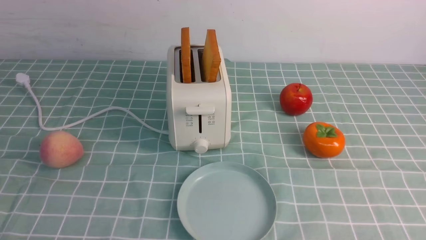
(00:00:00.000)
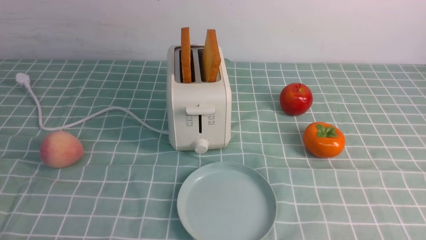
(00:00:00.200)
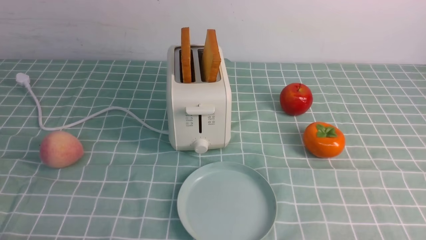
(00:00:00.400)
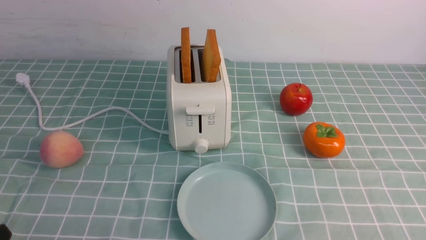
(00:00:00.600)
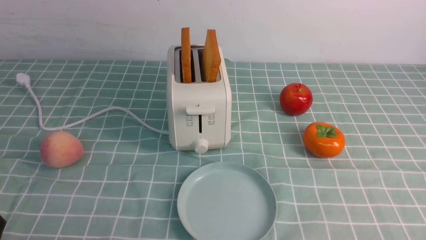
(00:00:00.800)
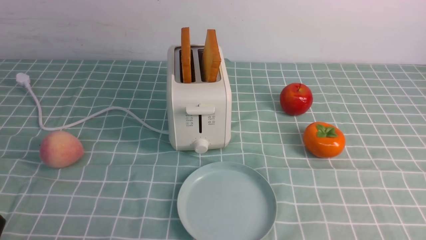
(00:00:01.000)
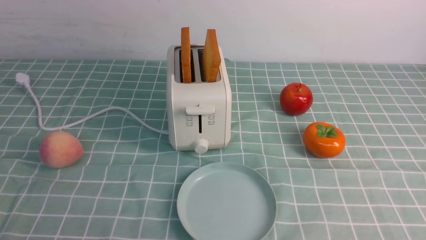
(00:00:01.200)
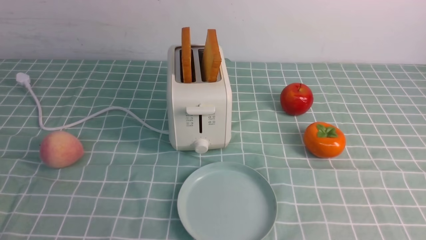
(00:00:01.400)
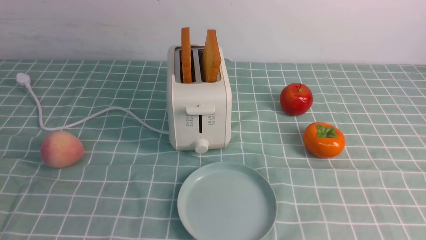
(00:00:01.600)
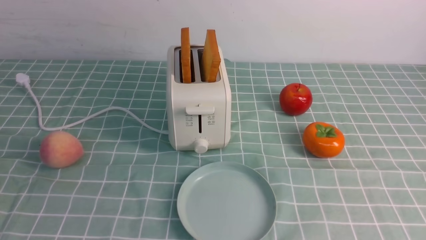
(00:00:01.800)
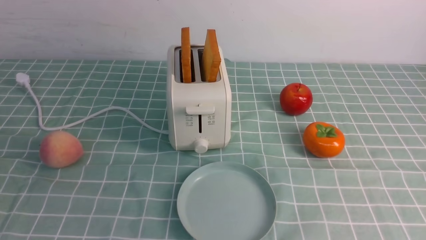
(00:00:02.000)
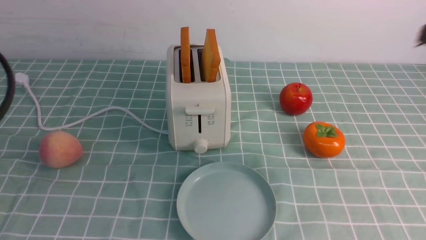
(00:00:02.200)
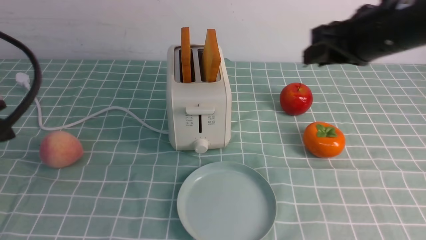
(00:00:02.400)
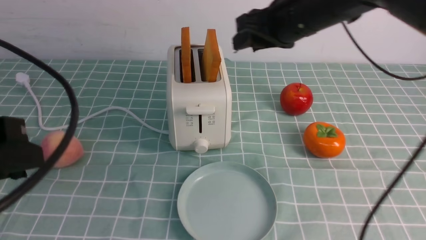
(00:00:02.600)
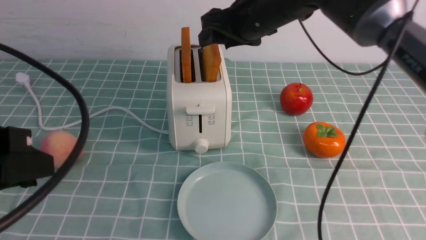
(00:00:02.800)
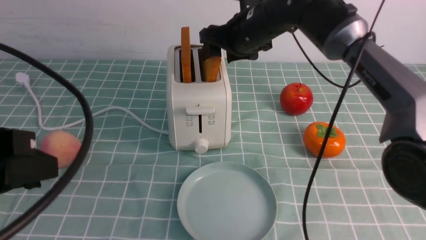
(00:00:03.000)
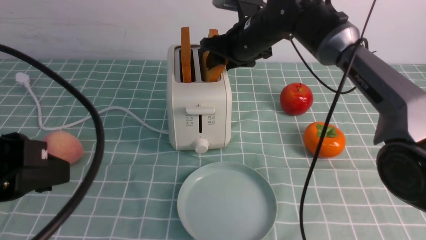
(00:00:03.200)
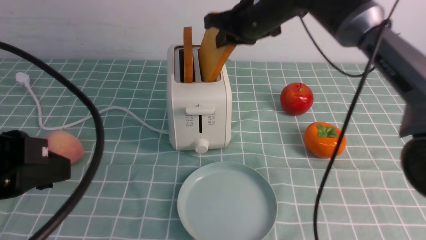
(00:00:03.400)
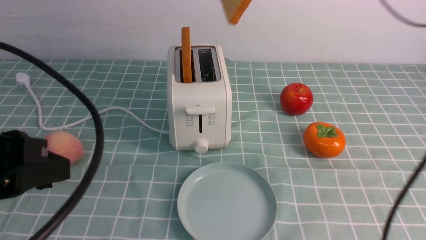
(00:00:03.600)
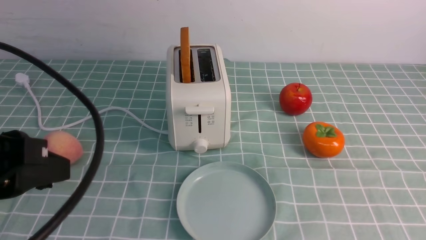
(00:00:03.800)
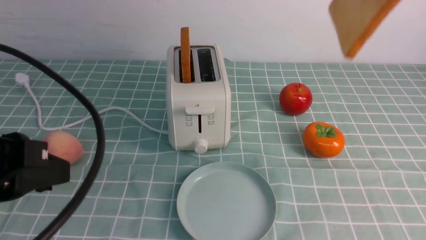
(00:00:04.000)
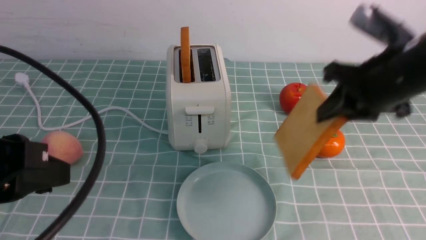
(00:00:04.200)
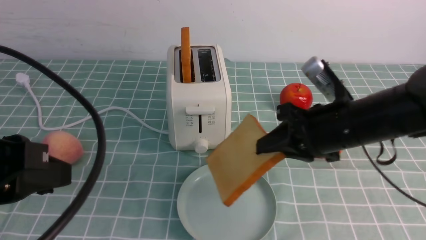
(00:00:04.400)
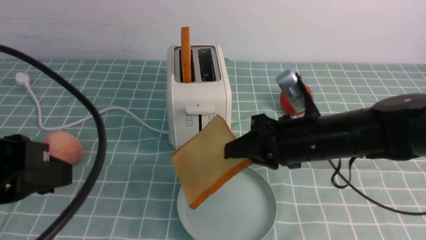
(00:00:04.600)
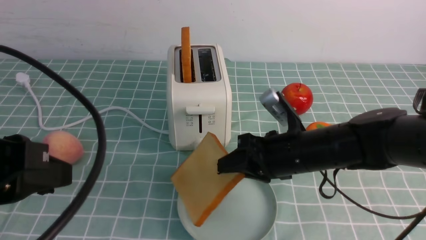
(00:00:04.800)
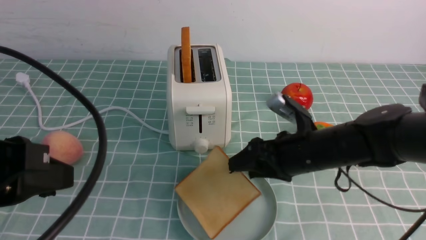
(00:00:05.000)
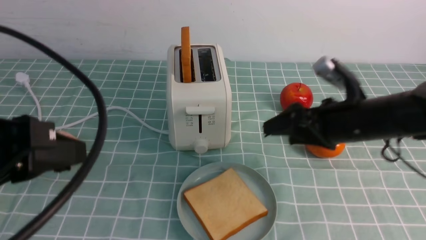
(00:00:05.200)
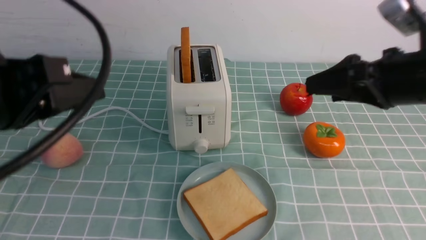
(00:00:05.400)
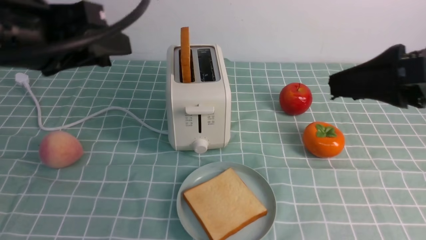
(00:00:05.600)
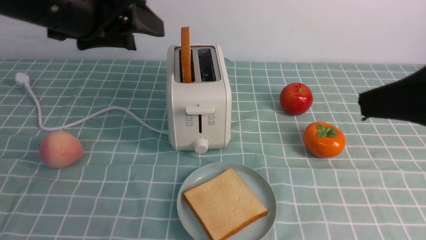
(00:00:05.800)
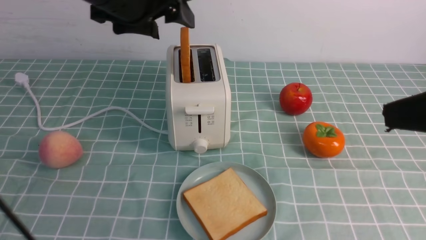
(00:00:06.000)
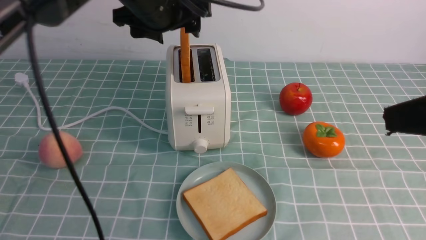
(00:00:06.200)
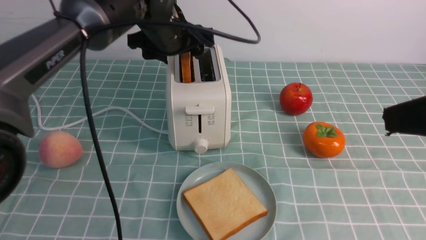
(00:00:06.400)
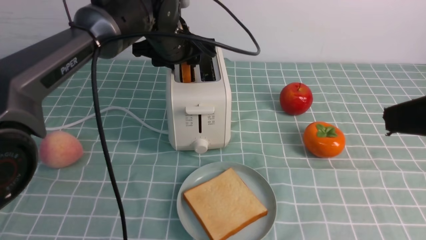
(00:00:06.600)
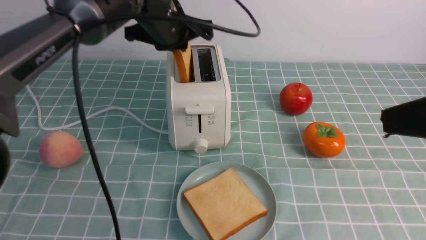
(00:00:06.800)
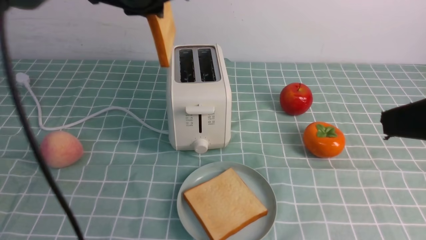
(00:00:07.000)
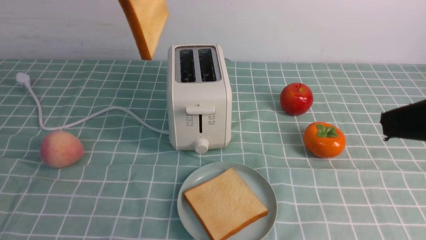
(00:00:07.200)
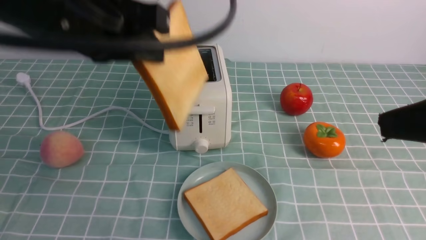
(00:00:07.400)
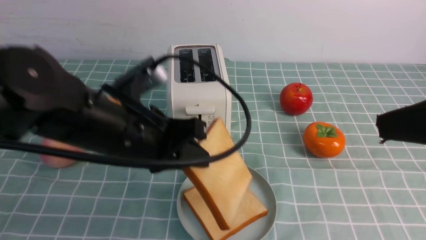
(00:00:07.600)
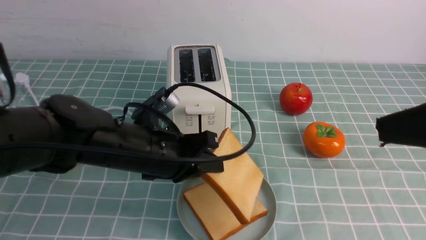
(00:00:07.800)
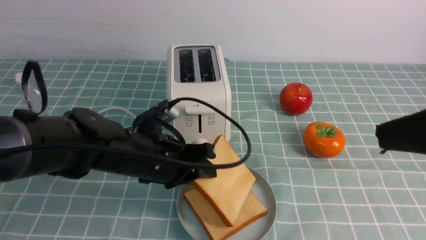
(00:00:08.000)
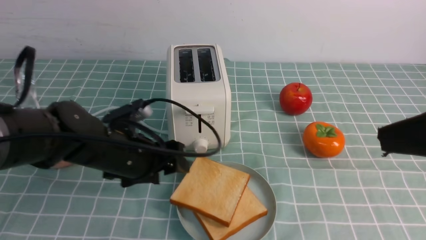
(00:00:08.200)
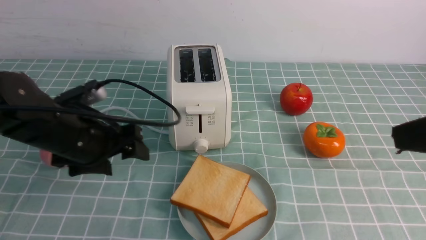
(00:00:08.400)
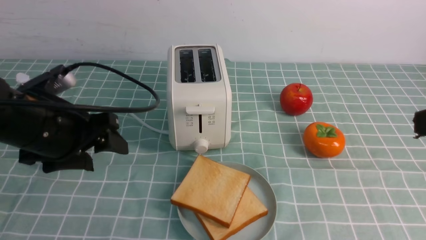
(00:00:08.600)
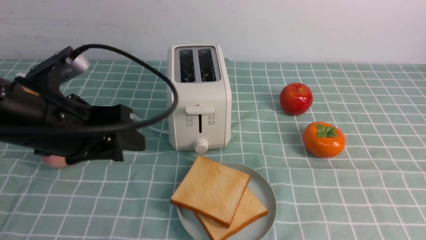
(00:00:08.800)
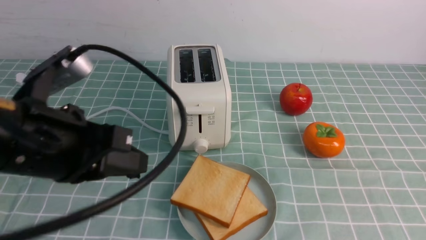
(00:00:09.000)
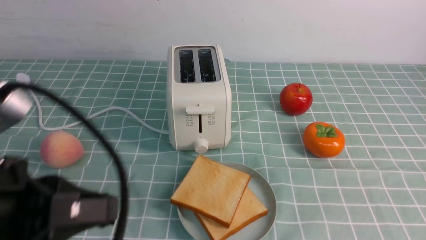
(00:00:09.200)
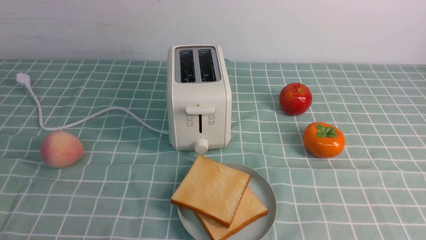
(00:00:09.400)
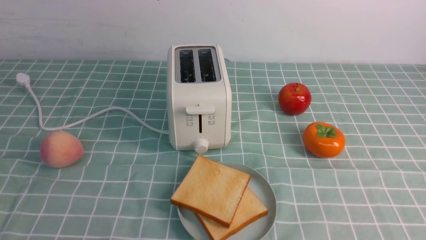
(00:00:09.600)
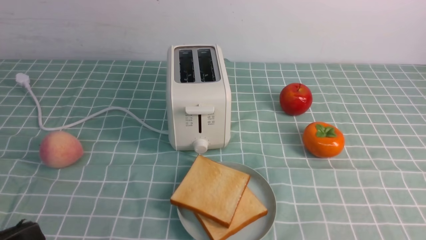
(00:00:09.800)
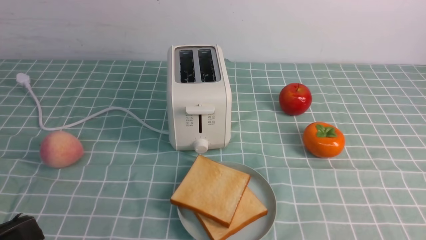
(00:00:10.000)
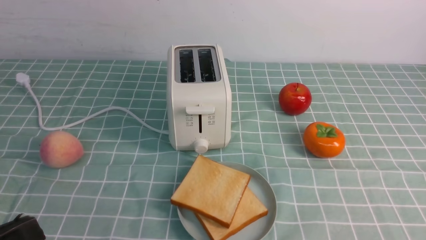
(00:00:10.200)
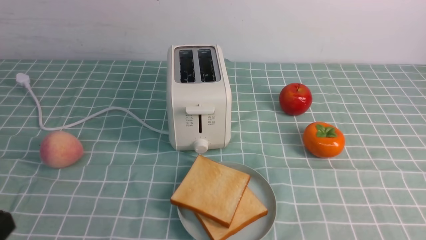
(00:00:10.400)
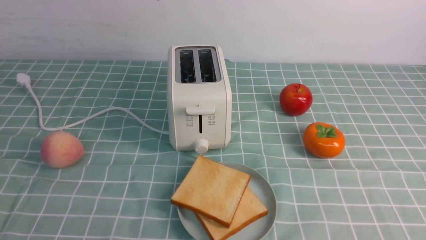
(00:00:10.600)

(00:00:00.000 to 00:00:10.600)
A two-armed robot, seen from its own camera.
Task of the whole recording: take toasted bread from bread machine on blue coffee table place on plate.
Step, 00:00:00.000 - 00:00:03.400: use the right arm to take out a slice of bread.
Step, 00:00:03.800 - 00:00:05.200: use the right arm to put a slice of bread into the plate.
Step, 00:00:05.400 - 00:00:07.200: use the left arm to take out a slice of bread.
Step, 00:00:07.400 - 00:00:08.600: use the left arm to put a slice of bread into the empty plate.
00:00:01.600 - 00:00:03.000: The left gripper shifts about 10 cm forward; the right gripper moves forward and to the left, roughly 50 cm, and opens.
00:00:03.000 - 00:00:04.600: The right gripper travels backward by approximately 15 cm, reaches some 20 cm upward, then returns, and closes.
00:00:04.600 - 00:00:06.000: The left gripper moves forward, approximately 25 cm, and opens up, while the right gripper goes approximately 25 cm upward, backward and to the right, and opens its fingers.
00:00:06.000 - 00:00:07.600: The left gripper travels downward and backward by about 15 cm, and closes up.
00:00:07.600 - 00:00:09.000: The left gripper heads backward and to the left, covering roughly 10 cm, and opens, then closes once more, while the right gripper heads backward, covering approximately 10 cm, and closes its fingers.
00:00:09.000 - 00:00:10.600: The left gripper travels backward, downward and to the left by about 20 cm, while the right gripper travels downward by roughly 15 cm.
